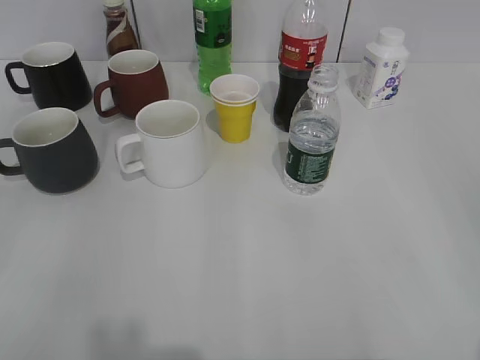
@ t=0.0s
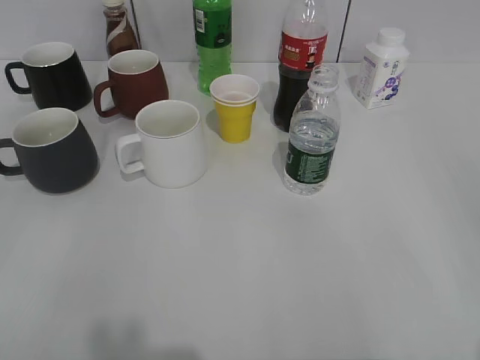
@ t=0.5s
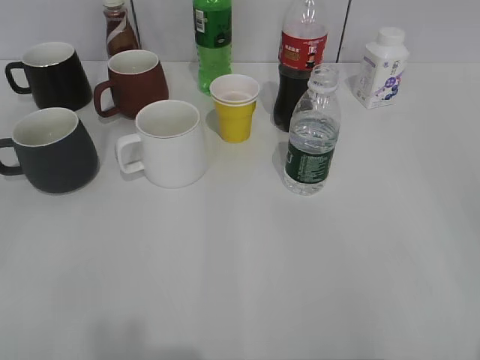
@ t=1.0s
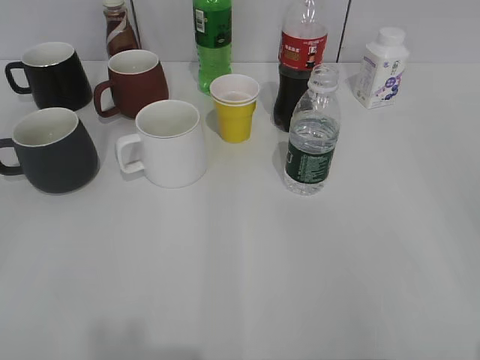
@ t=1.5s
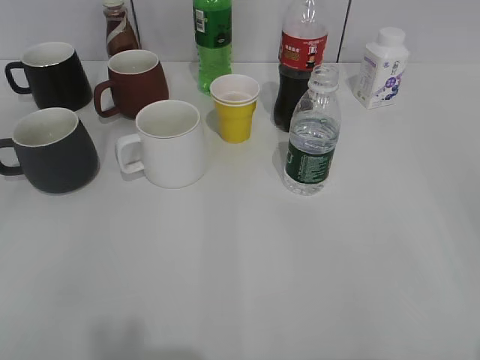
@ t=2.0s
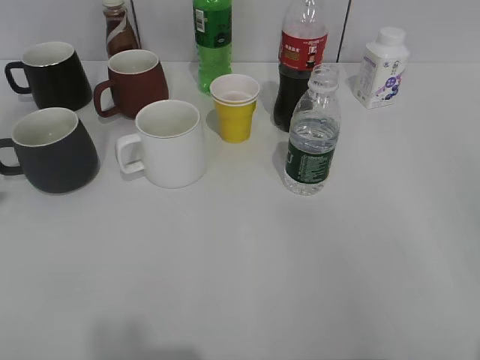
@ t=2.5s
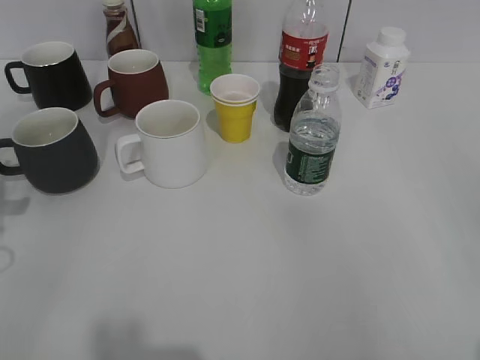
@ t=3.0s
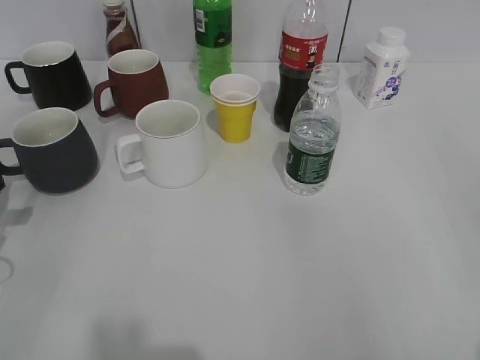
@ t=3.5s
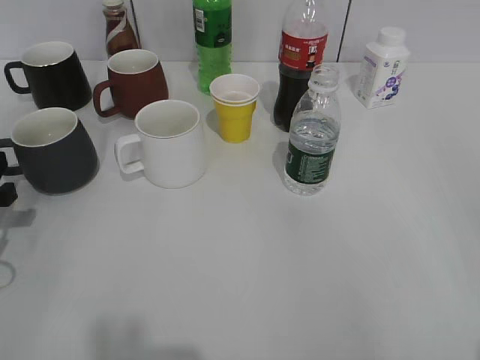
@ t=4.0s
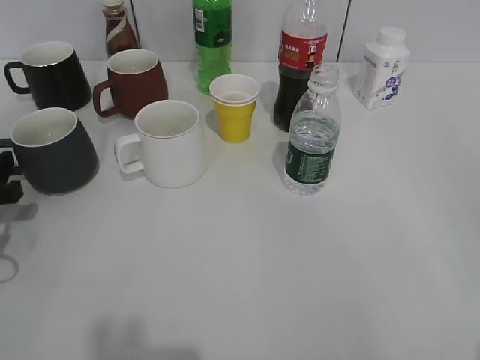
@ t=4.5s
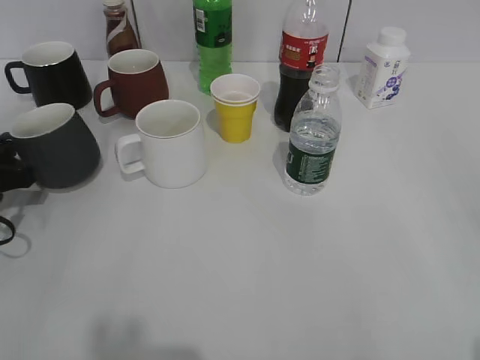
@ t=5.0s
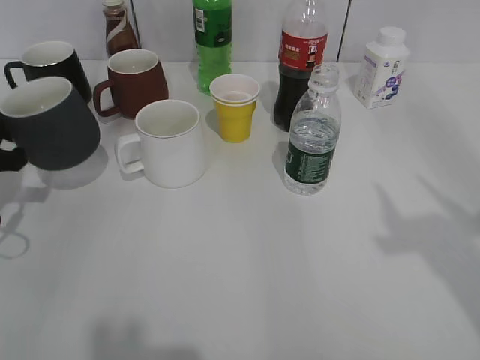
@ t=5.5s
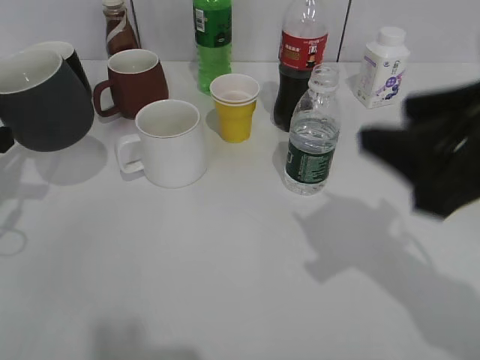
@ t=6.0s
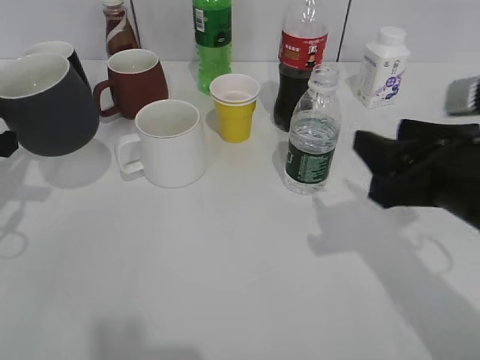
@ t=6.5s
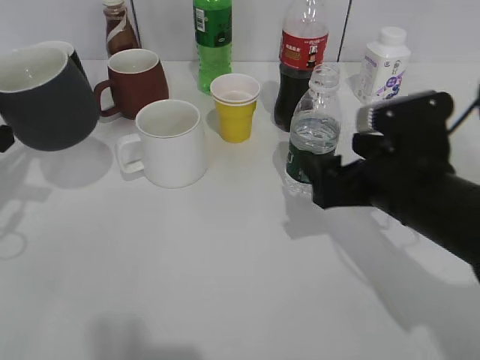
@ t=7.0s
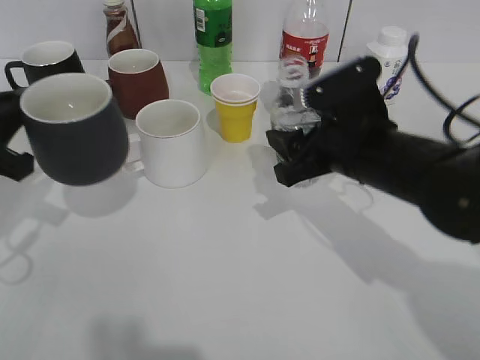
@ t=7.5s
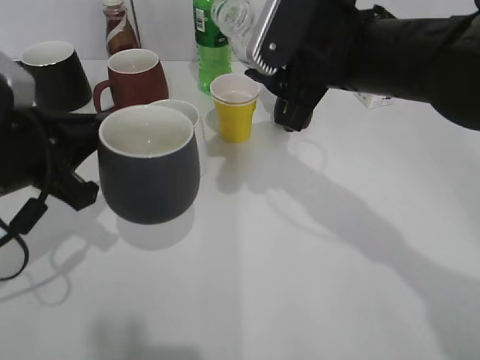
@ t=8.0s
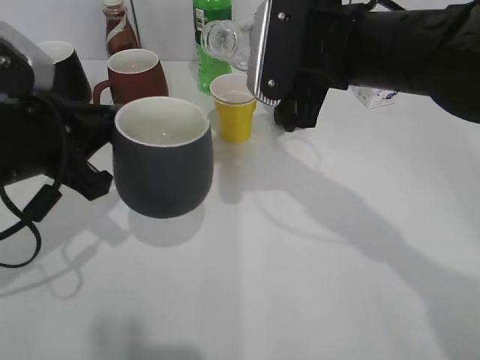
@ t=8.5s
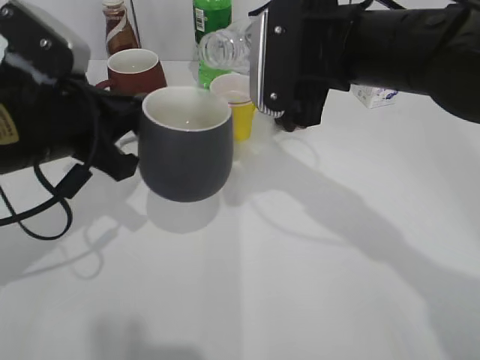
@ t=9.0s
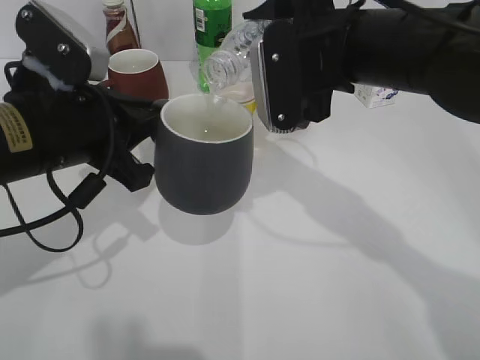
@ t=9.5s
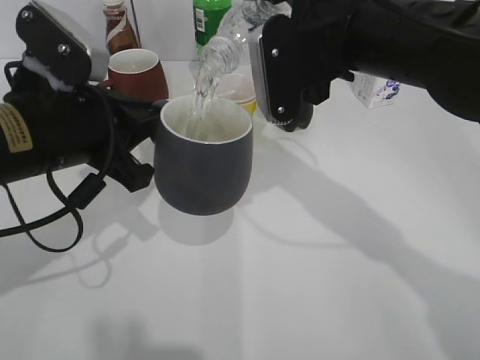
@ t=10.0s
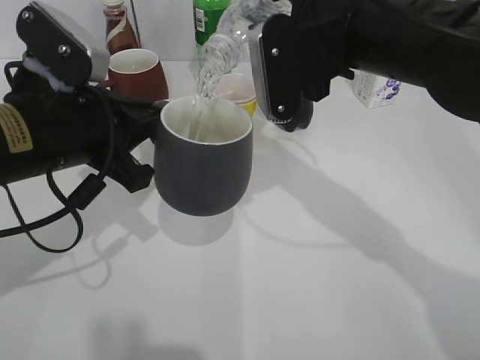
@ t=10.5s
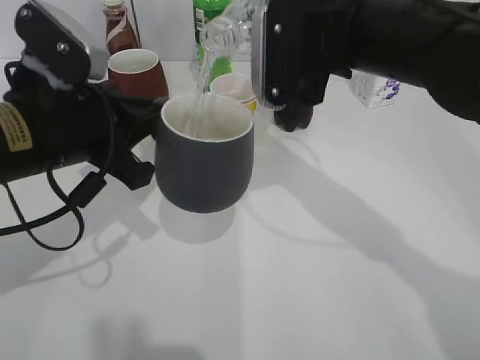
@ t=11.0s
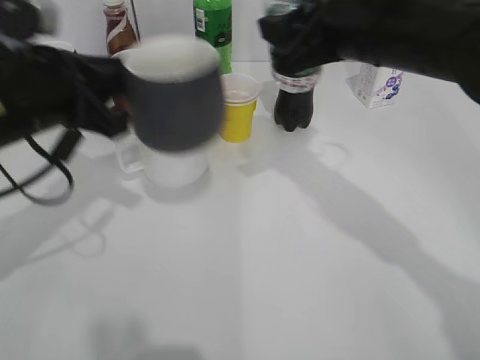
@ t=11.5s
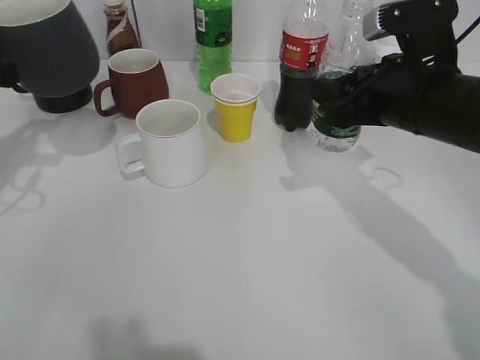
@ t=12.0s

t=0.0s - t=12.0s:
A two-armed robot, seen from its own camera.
Step, t=5.0s - t=5.5s: Lift the black cup with left gripper.
Step, t=6.0s - t=7.0s: Grasp the bottle with water with right gripper.
Step, t=7.5s - t=11.0s: Pour the water from bottle to cup with right gripper.
t=2.0s - t=4.0s: The left gripper travels forward and downward by approximately 30 cm.
t=4.0s - t=6.0s: The right gripper shifts roughly 20 cm forward and to the left. The left gripper goes some 5 cm upward, and closes up.
t=6.0s - t=8.0s: The left gripper heads to the right, covering some 10 cm; the right gripper travels forward and to the left by roughly 15 cm, and opens, then closes once more.
t=8.0s - t=10.0s: The left gripper changes place by roughly 5 cm.
t=10.0s - t=12.0s: The left gripper shifts some 15 cm to the left and forward. Meanwhile the right gripper shifts about 10 cm to the right and downward.

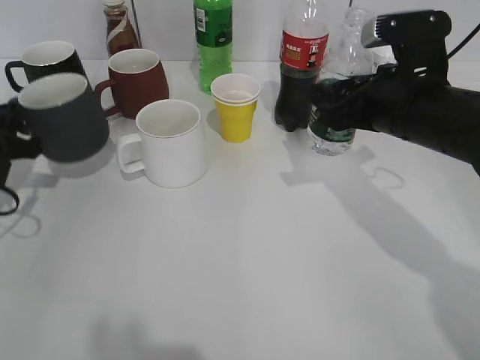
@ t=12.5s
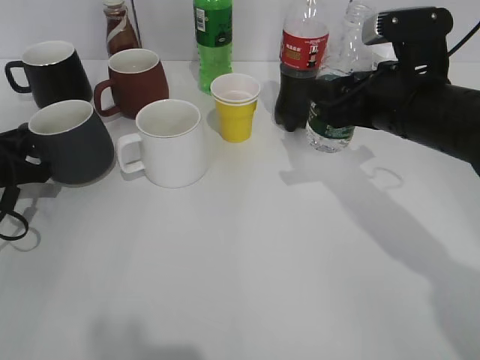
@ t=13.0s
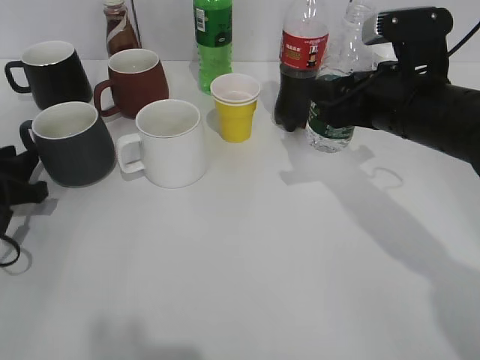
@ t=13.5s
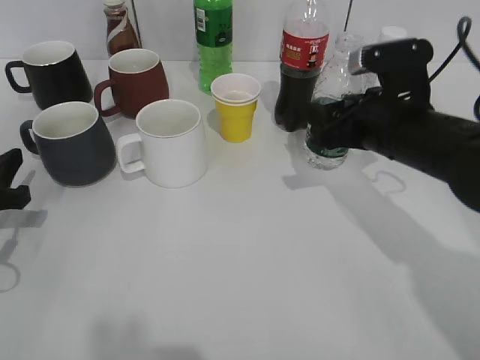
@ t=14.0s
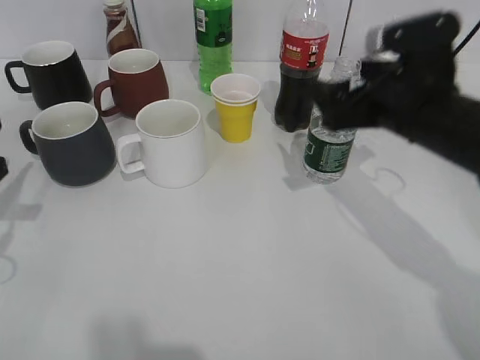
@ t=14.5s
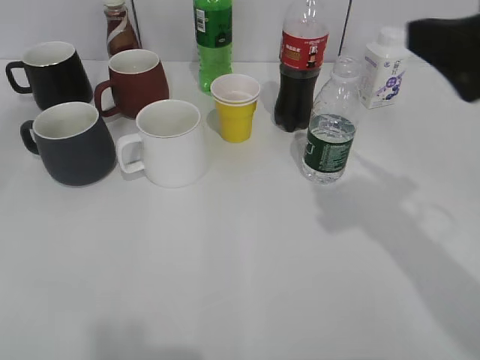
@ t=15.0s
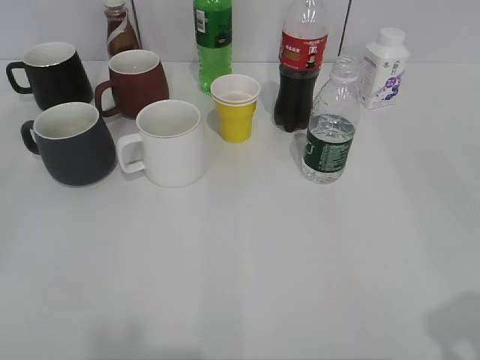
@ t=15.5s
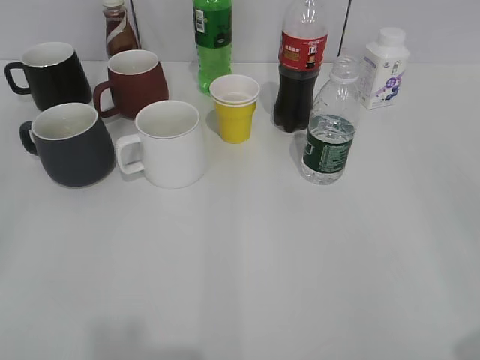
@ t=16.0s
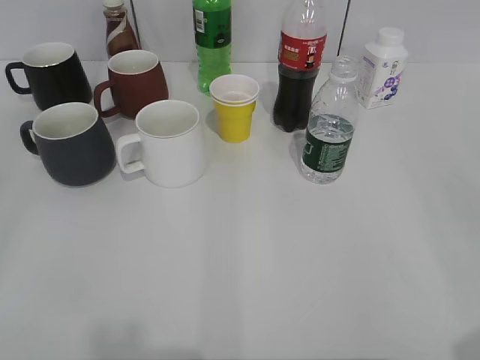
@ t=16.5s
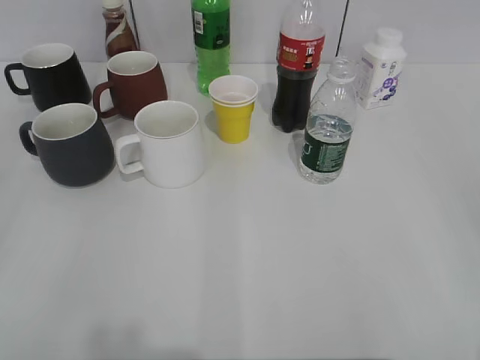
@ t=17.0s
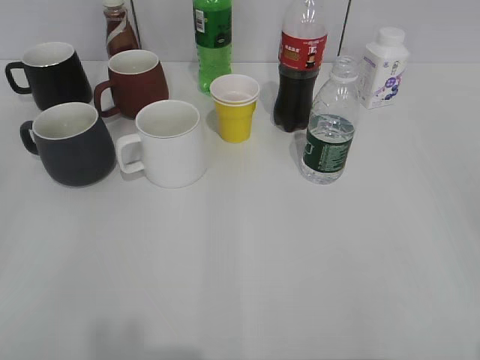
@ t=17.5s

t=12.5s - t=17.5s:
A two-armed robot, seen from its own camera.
t=12.5s - t=15.0s: The left gripper is displaced backward and upward by roughly 25 cm, and opens up; the right gripper goes approximately 15 cm upward and backward, and opens up.
t=15.0s - t=17.5s: The right gripper is displaced backward and to the right by roughly 20 cm, and closes up.

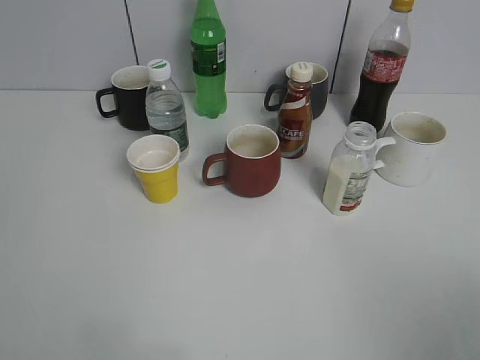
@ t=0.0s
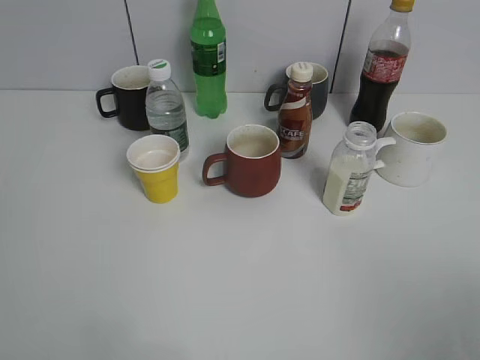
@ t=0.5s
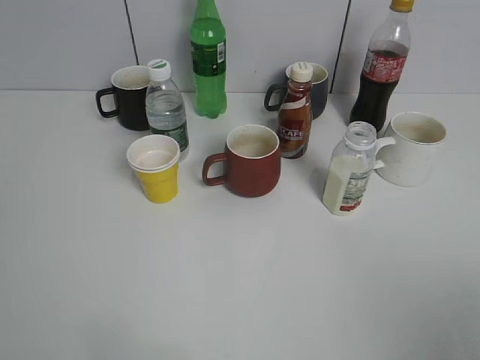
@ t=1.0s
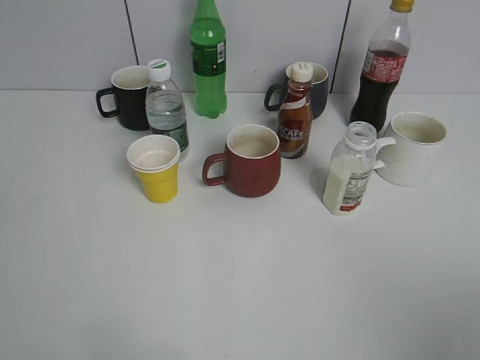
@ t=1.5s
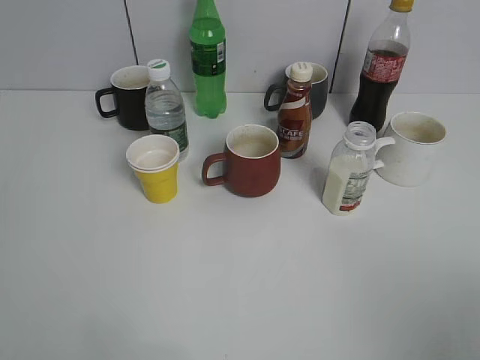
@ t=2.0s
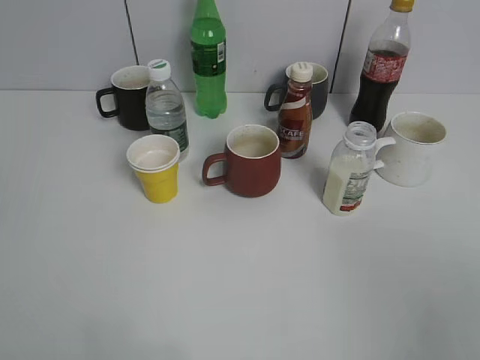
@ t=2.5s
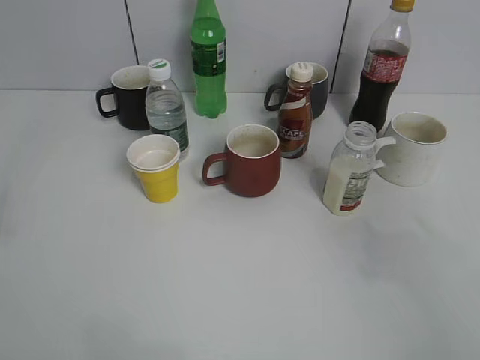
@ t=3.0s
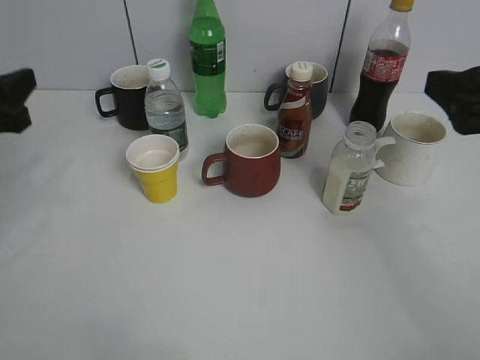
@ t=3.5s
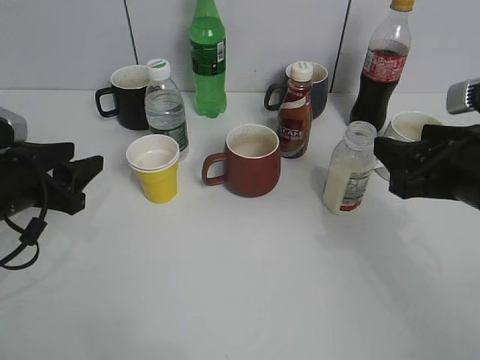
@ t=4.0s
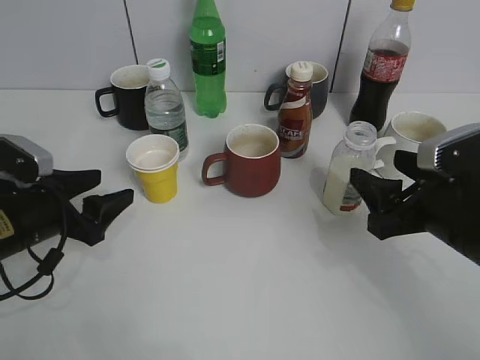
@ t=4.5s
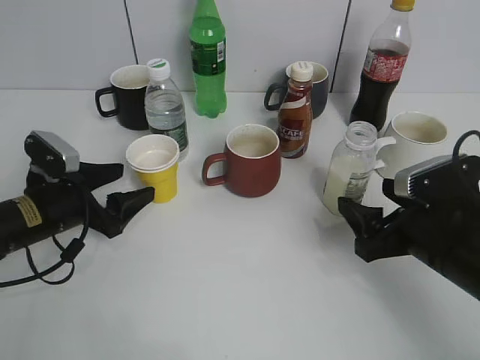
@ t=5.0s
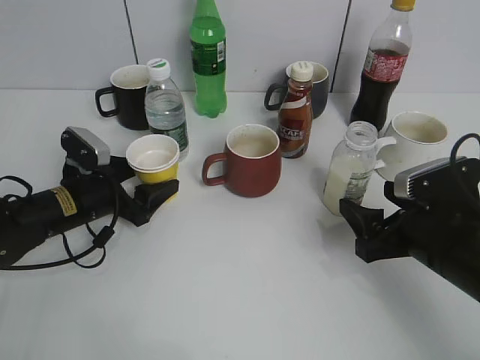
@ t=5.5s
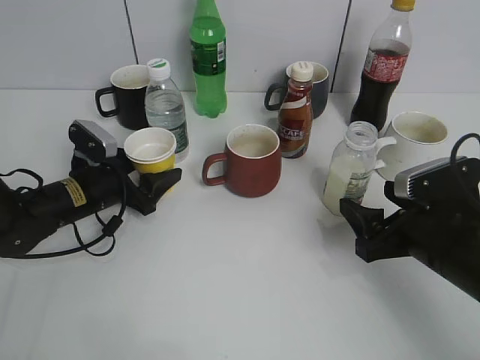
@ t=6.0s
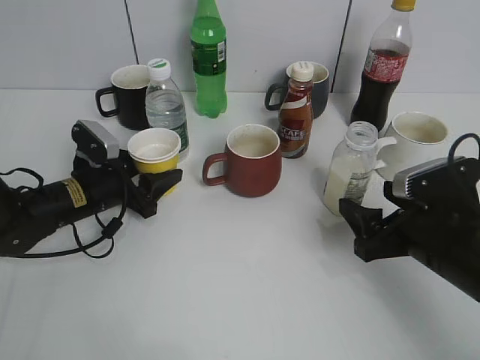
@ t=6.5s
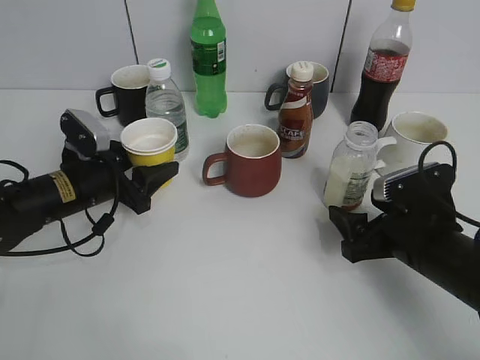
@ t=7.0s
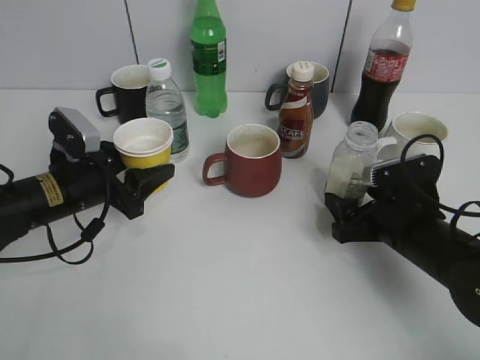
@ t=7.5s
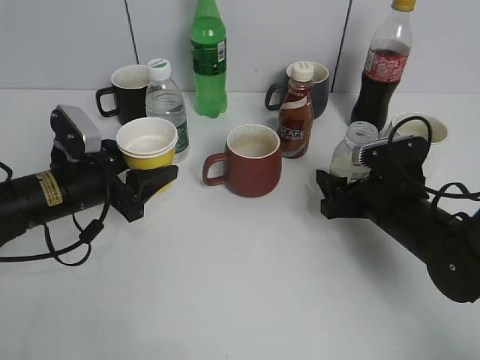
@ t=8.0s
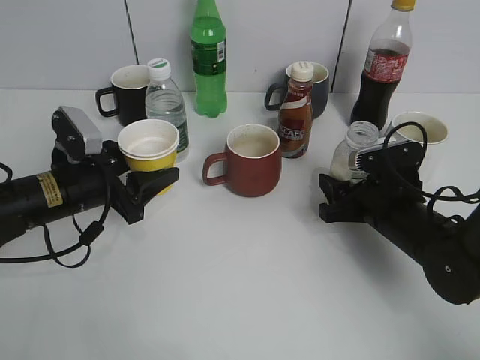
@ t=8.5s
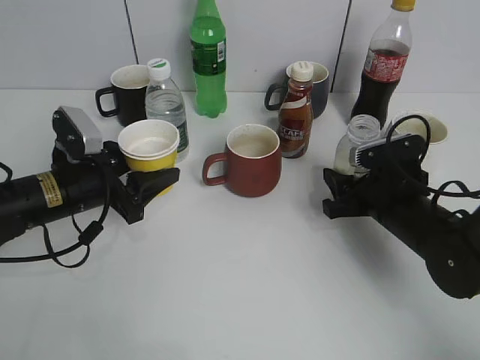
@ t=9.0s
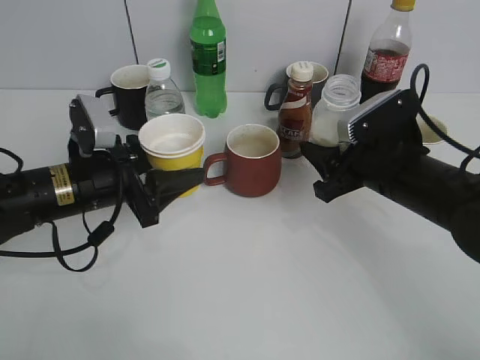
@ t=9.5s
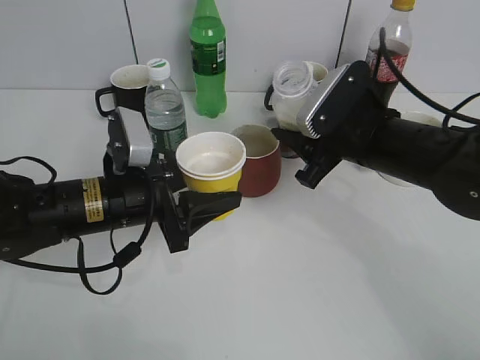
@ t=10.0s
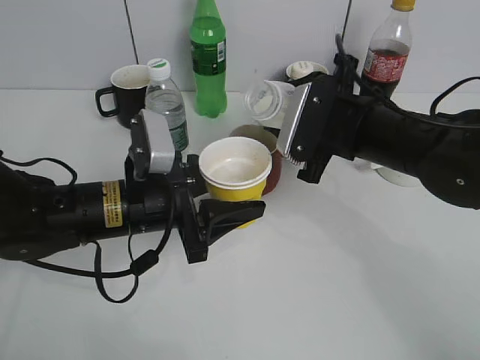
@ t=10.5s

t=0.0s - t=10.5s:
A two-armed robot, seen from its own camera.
Step, t=3.5s - t=6.0s: Grasp the yellow paper cup with left gripper.
Step, t=6.5s - t=7.0s: Lift the yellow paper cup with left gripper.
Step, t=7.5s - t=8.5s: Grasp the bottle with yuexian Milk with right gripper.
t=2.0s - t=4.0s: The right gripper travels forward by approximately 20 cm, and closes its fingers, while the left gripper travels forward and downward by some 30 cm.
t=4.0s - t=6.5s: The left gripper travels downward, forward and to the right by approximately 15 cm, and opens, then closes again; the right gripper shifts about 10 cm downward, and opens its fingers.
t=6.5s - t=8.5s: The left gripper moves about 5 cm. The right gripper is displaced forward by some 5 cm, and closes its fingers.
t=8.5s - t=10.5s: The right gripper moves upward and to the left, approximately 15 cm; the left gripper goes roughly 10 cm to the right.
